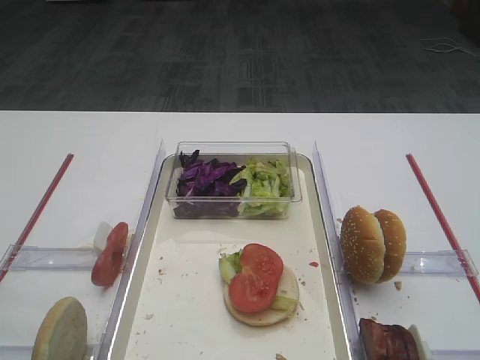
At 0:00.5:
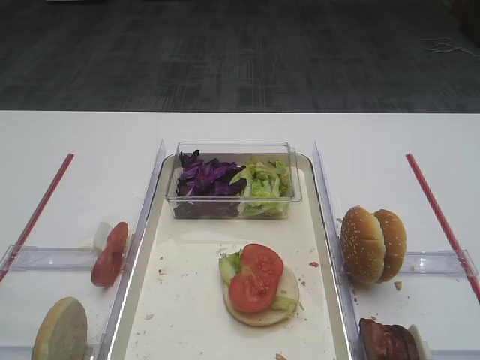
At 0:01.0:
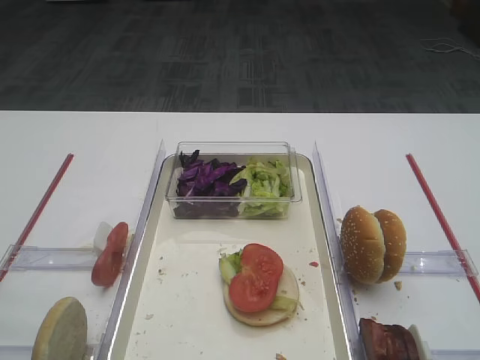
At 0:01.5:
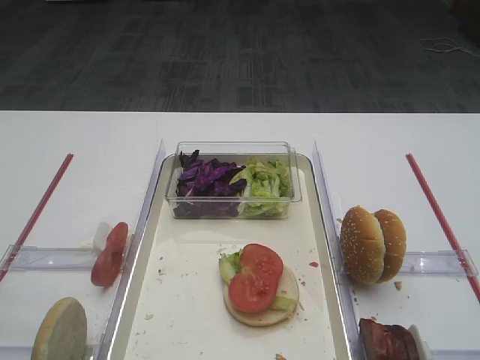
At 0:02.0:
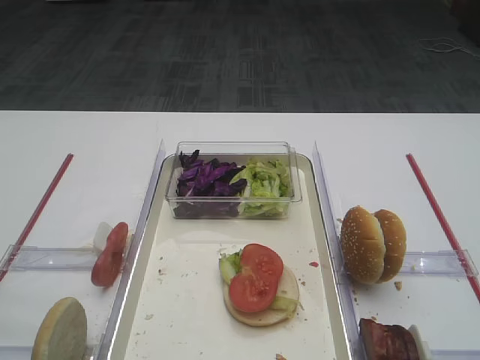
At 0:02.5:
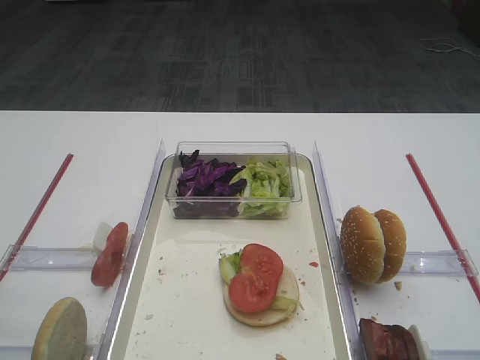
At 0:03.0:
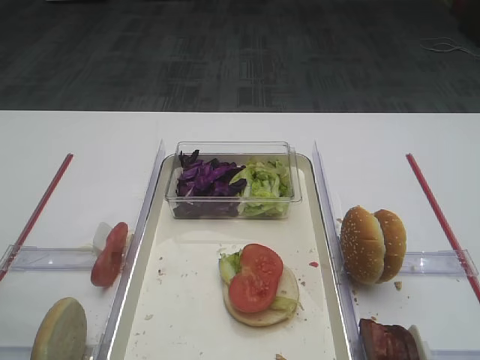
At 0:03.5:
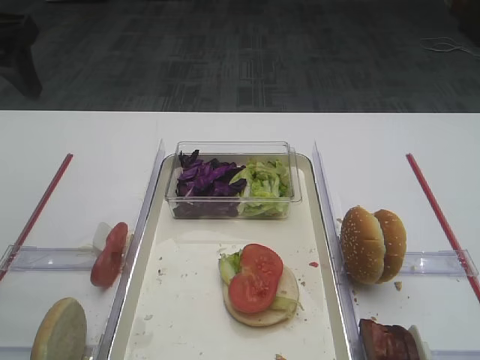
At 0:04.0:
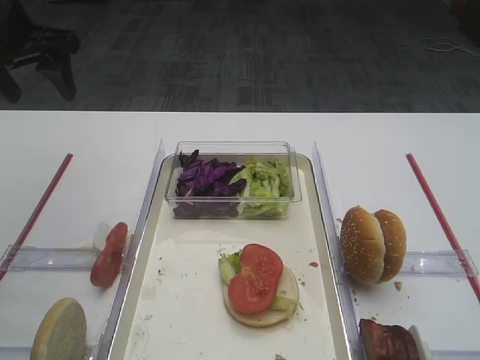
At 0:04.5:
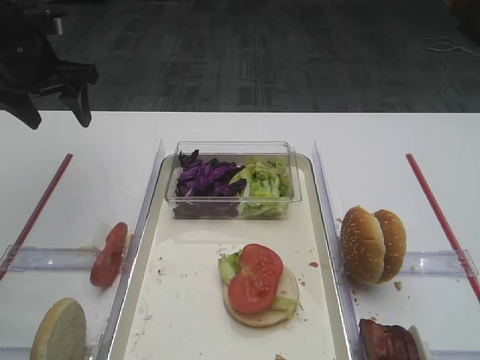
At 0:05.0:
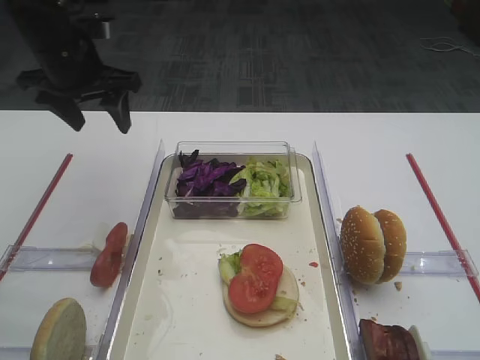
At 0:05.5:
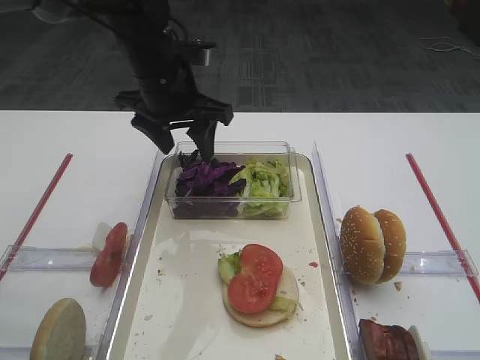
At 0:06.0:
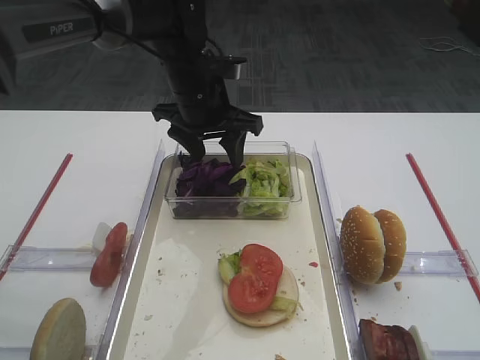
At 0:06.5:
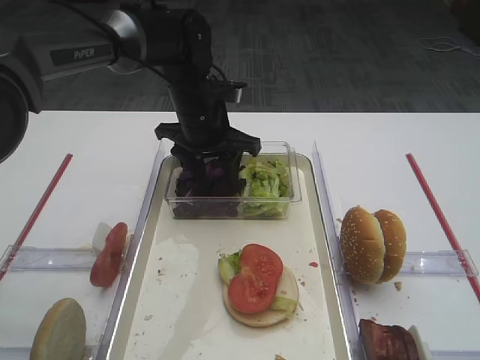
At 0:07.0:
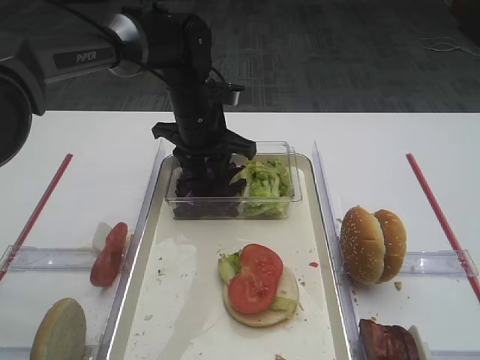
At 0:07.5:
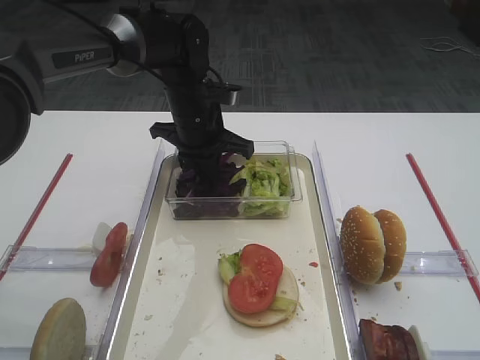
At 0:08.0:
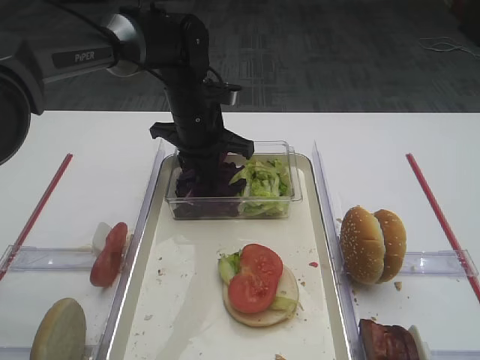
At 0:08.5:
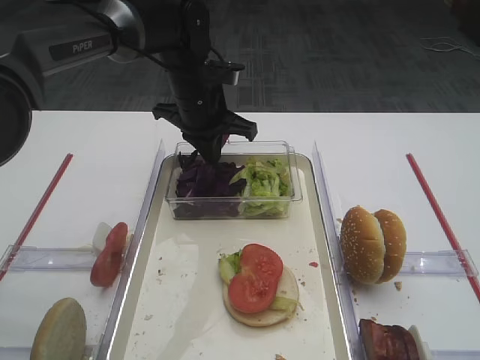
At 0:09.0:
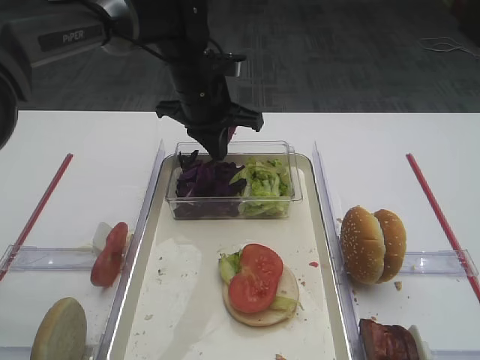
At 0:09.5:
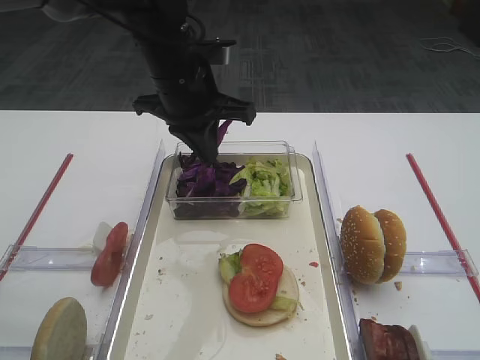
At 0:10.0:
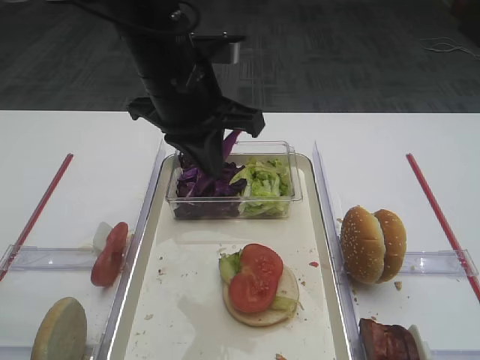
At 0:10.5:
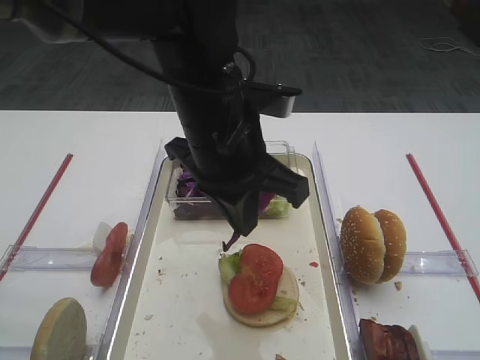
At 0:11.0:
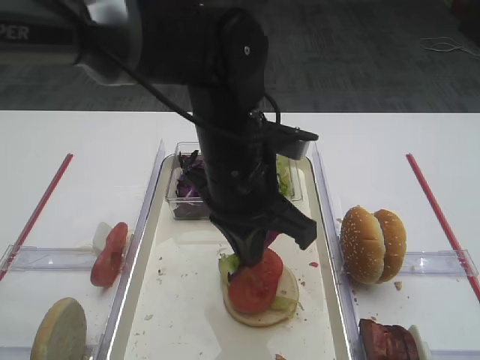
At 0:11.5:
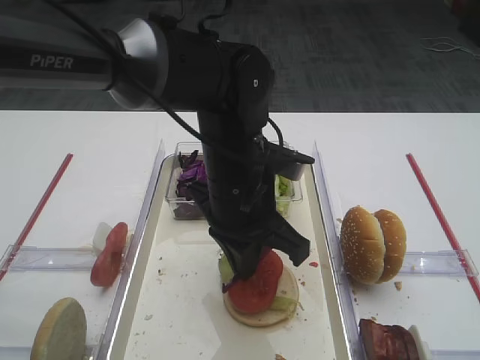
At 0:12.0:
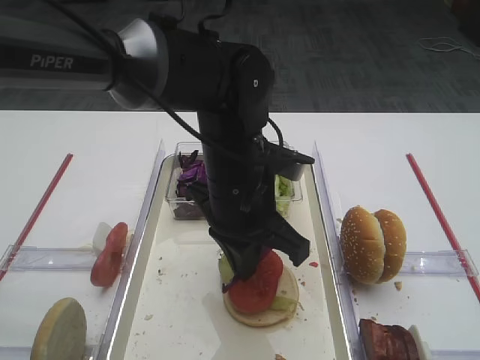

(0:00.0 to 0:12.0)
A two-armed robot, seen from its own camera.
Step, 0:00.0 - 0:09.0: Pick up the purple cabbage with the left gripper.
0:02.0 - 0:04.0: The left gripper moves forward, about 40 cm.
0:04.0 - 0:06.0: The left gripper heads to the right and downward, covering some 25 cm.
0:06.0 - 0:08.0: The left gripper closes.
0:08.0 - 0:10.0: The left gripper travels backward and upward by approximately 15 cm.
0:10.0 - 0:12.0: The left gripper goes roughly 10 cm downward and to the right.

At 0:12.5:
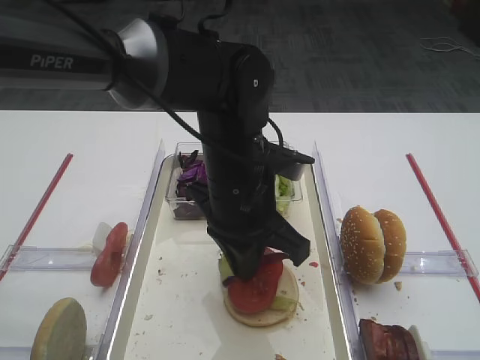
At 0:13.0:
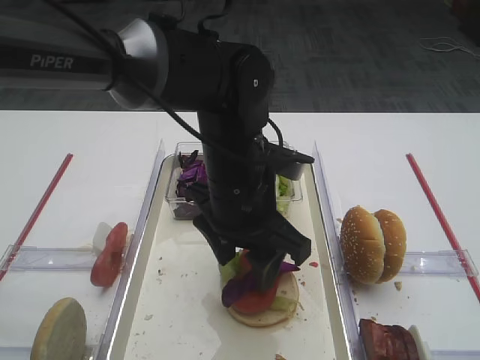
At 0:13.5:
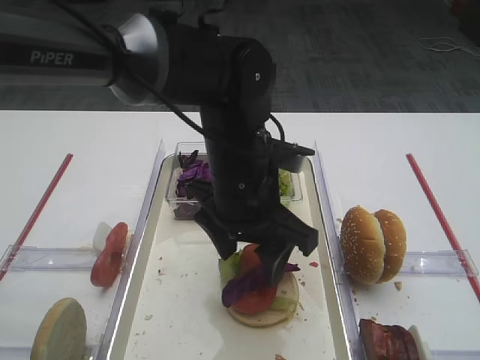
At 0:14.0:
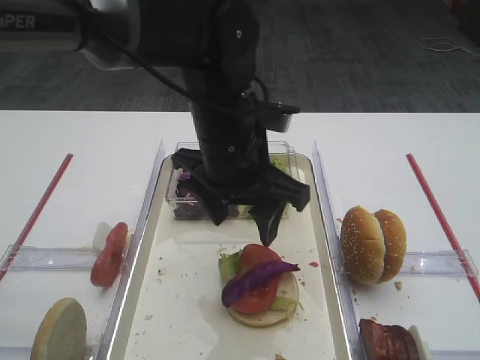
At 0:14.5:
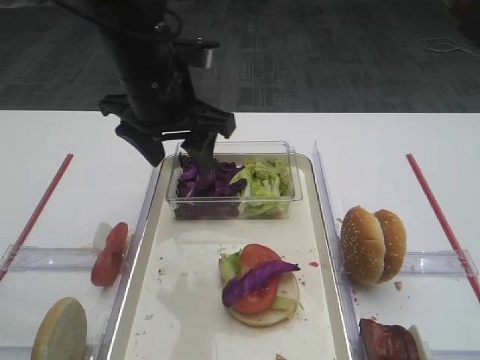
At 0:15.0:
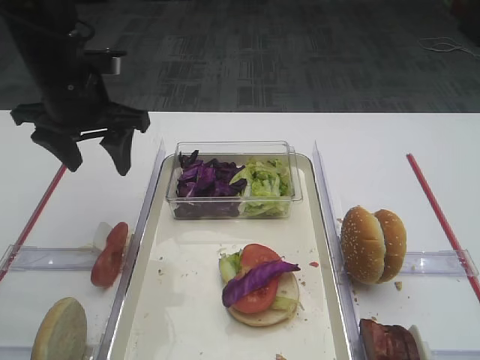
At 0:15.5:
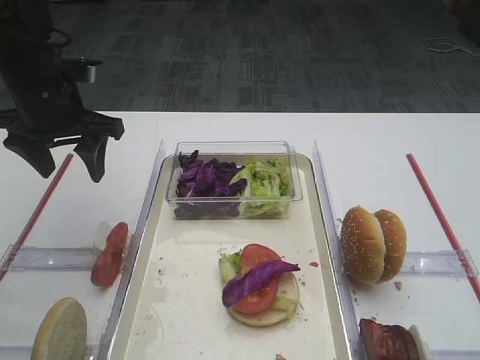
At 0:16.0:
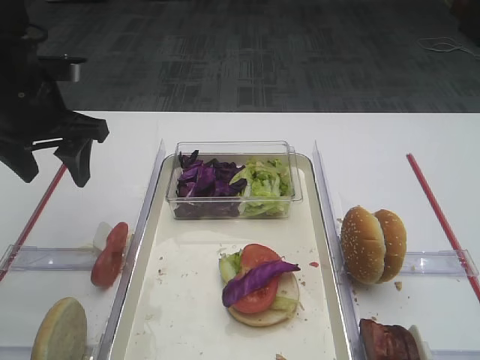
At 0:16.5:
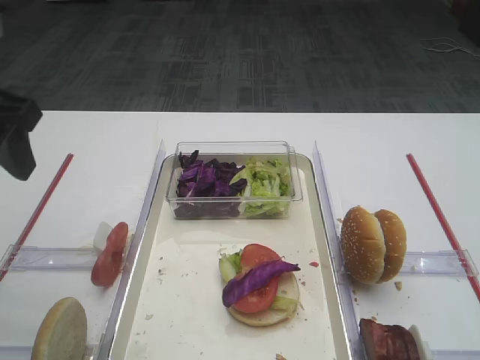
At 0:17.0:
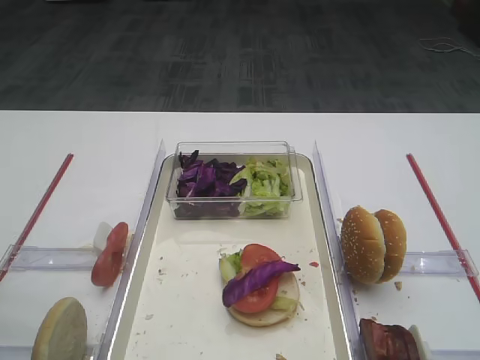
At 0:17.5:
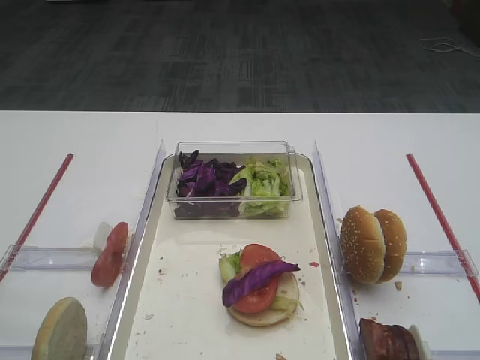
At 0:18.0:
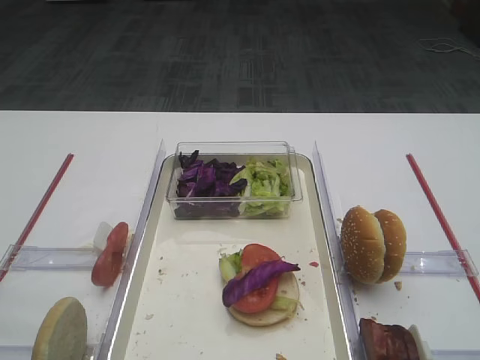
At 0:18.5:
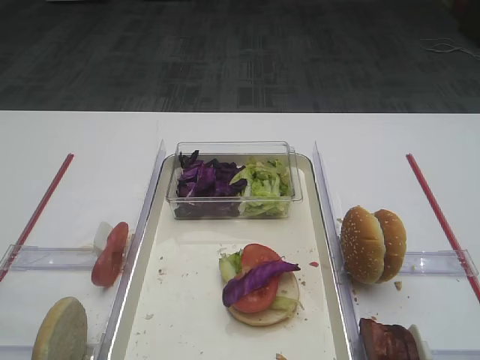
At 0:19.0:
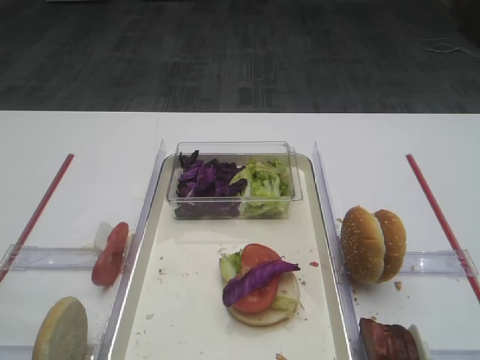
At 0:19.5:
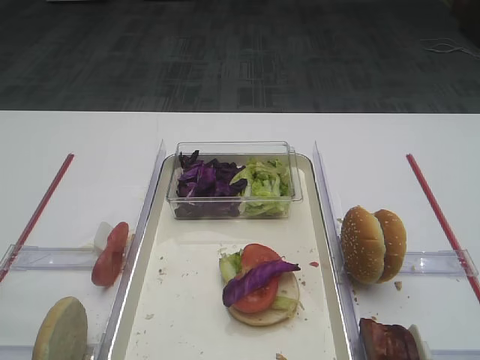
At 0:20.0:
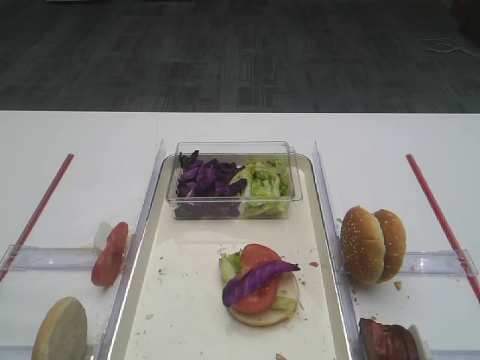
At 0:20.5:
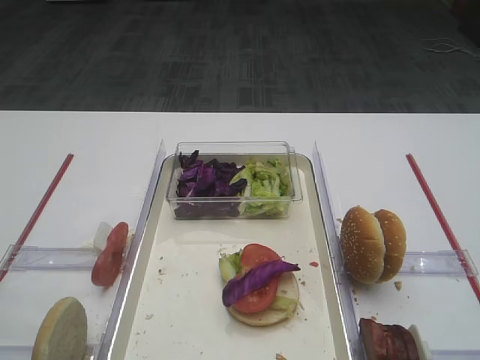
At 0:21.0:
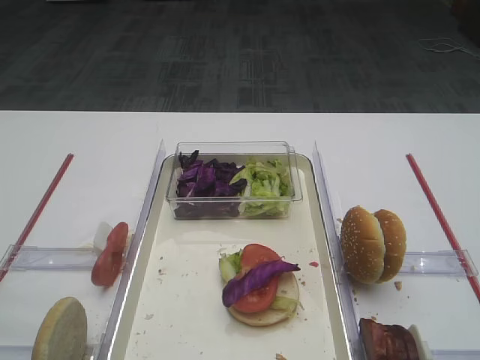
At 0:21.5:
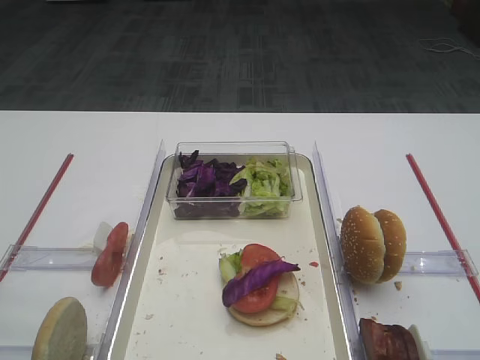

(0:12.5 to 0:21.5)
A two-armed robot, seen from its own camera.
0:12.5 - 0:14.5: The left gripper moves to the left, upward and forward, roughly 15 cm, and opens.
0:14.5 - 0:17.0: The left gripper shifts some 25 cm backward and to the left.
0:19.5 - 0:21.5: The two grippers keep their place.

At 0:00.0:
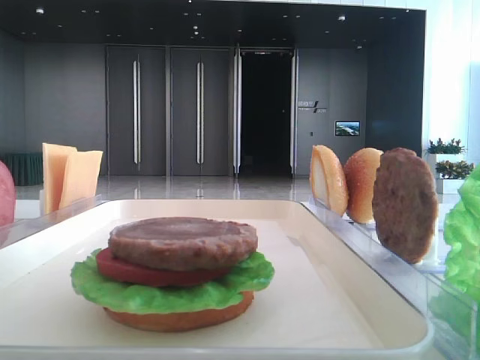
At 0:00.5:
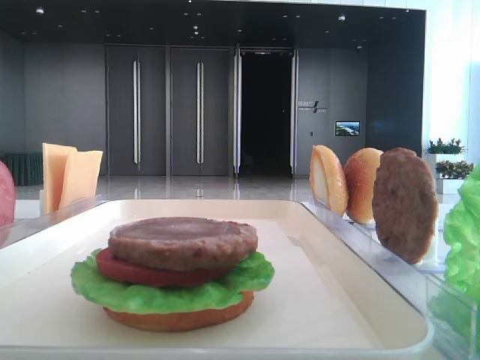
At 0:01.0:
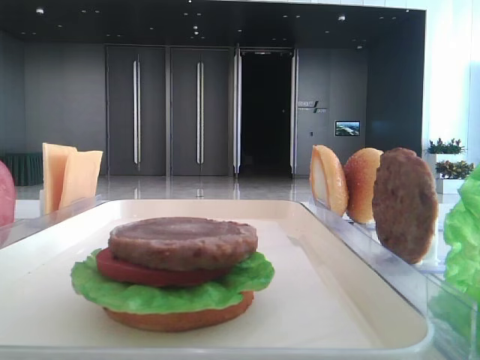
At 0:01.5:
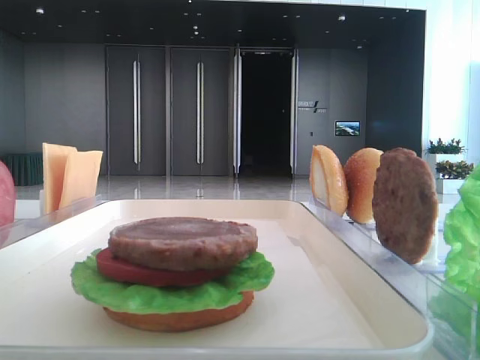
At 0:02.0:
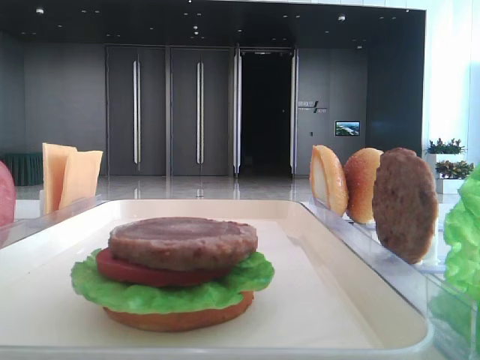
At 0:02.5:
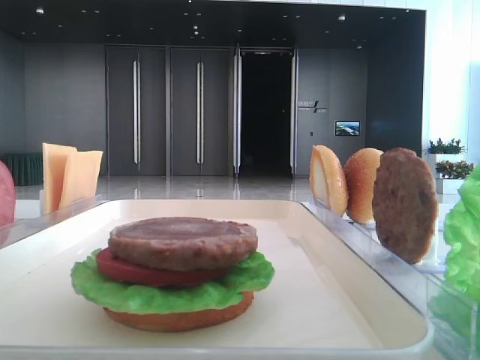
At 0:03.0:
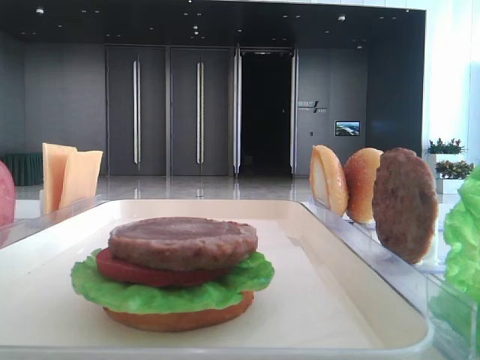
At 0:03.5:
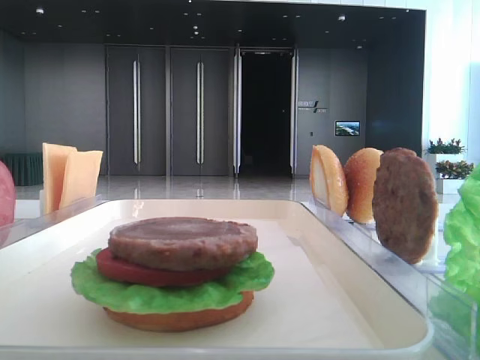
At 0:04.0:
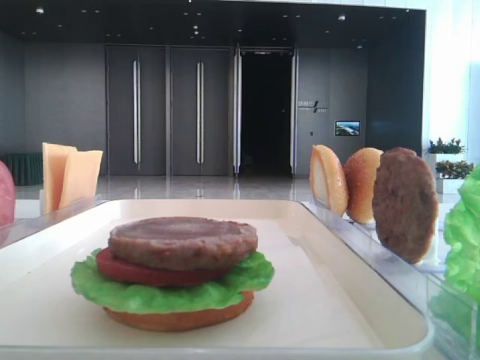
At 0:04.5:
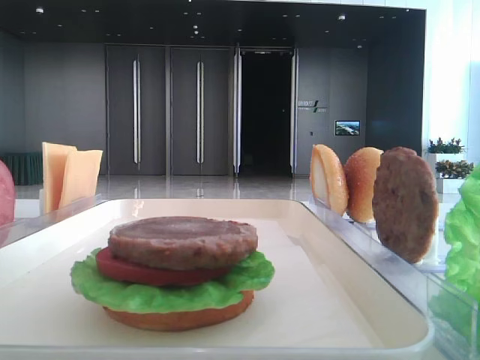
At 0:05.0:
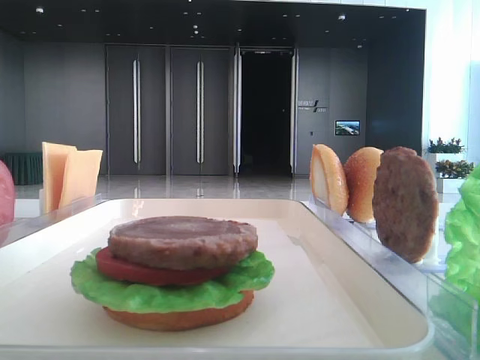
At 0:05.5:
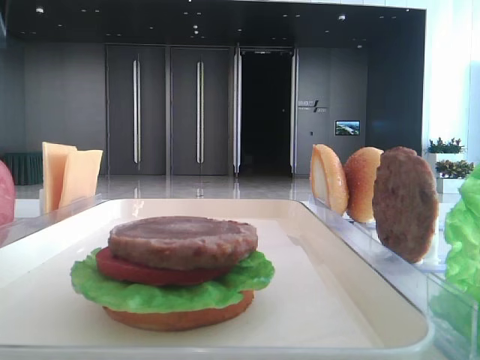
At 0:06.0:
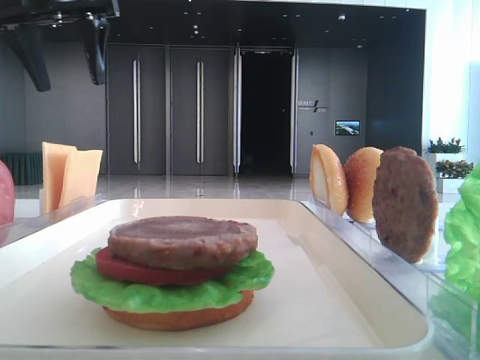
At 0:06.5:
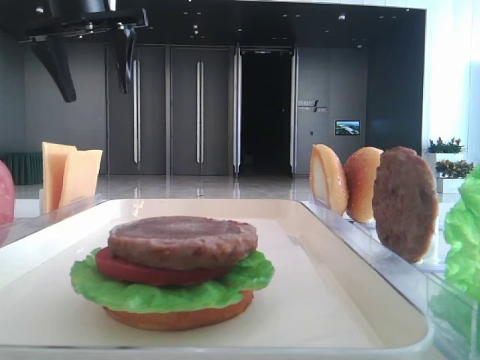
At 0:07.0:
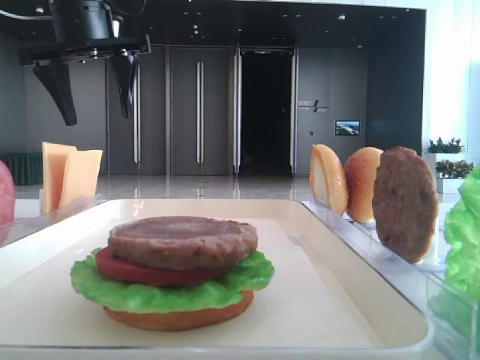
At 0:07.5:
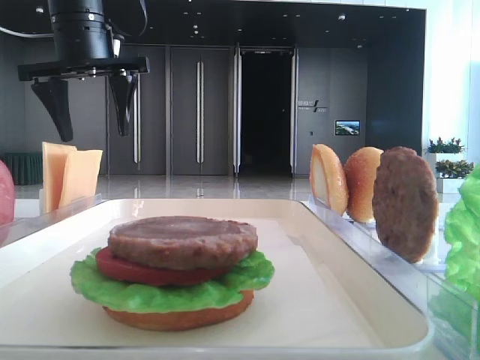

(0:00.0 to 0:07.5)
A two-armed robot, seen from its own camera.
0:05.5 - 0:07.5: The left gripper heads to the right and downward, covering some 15 cm.
